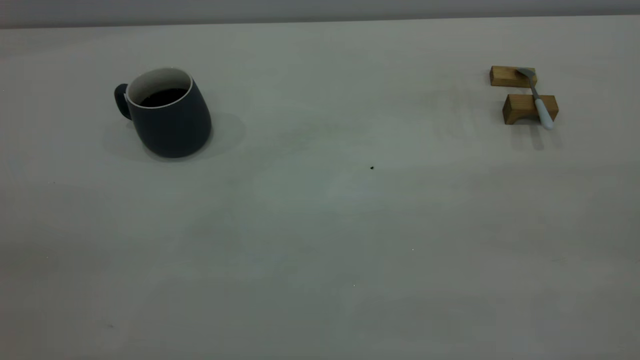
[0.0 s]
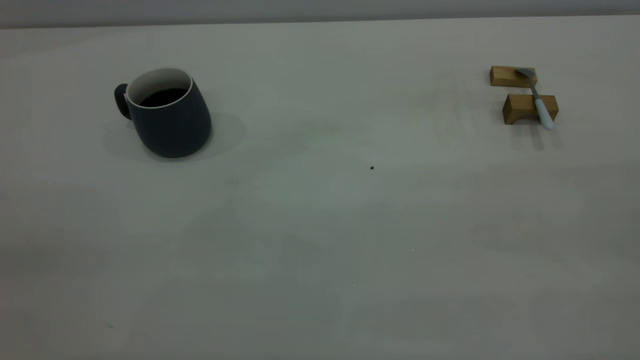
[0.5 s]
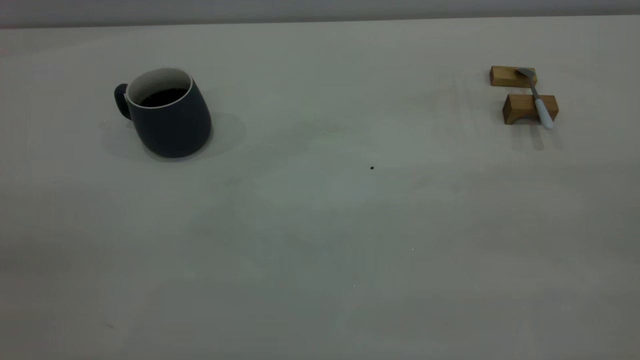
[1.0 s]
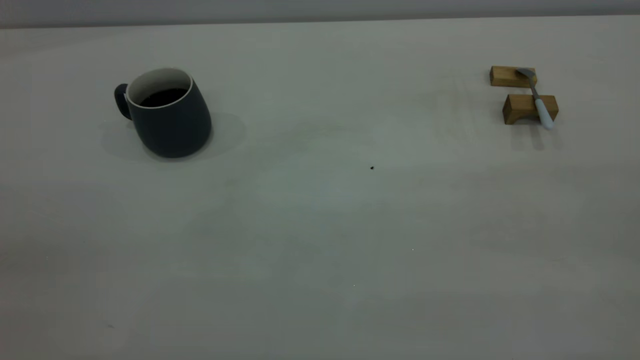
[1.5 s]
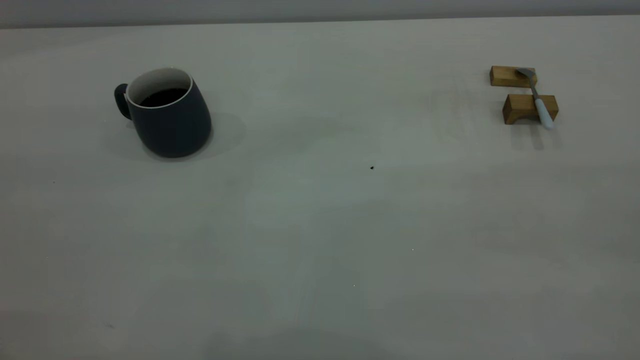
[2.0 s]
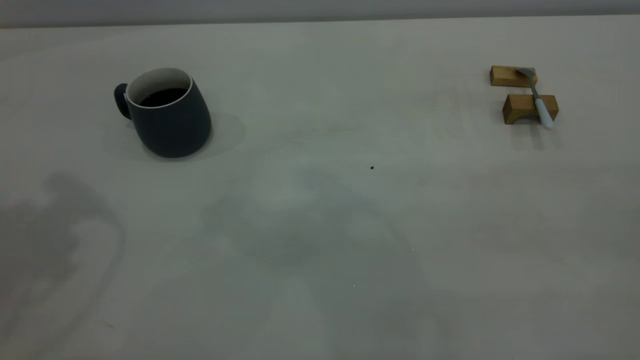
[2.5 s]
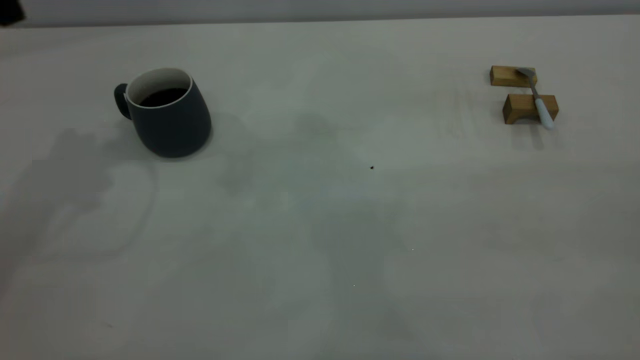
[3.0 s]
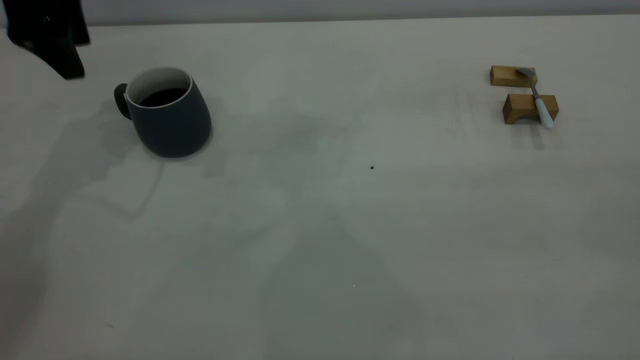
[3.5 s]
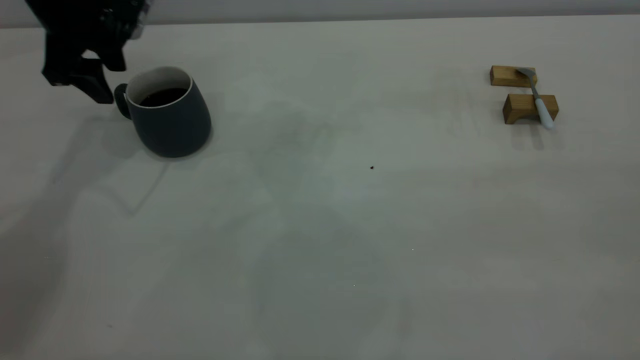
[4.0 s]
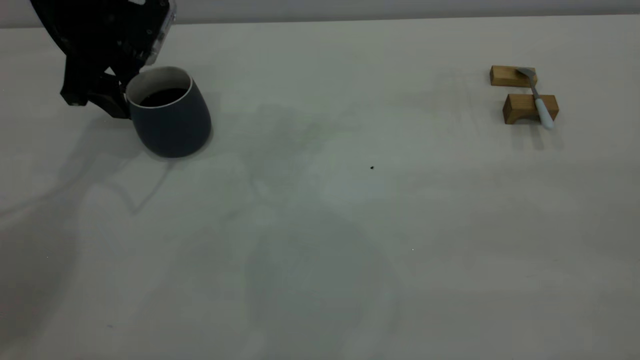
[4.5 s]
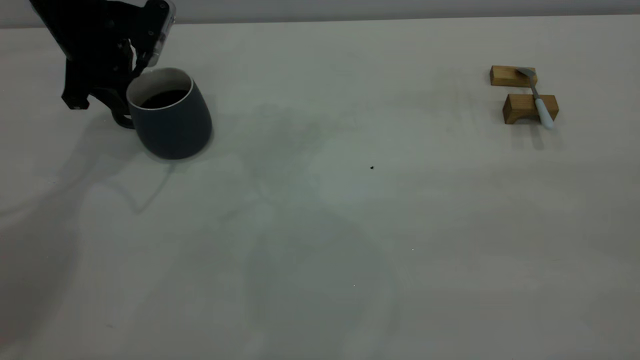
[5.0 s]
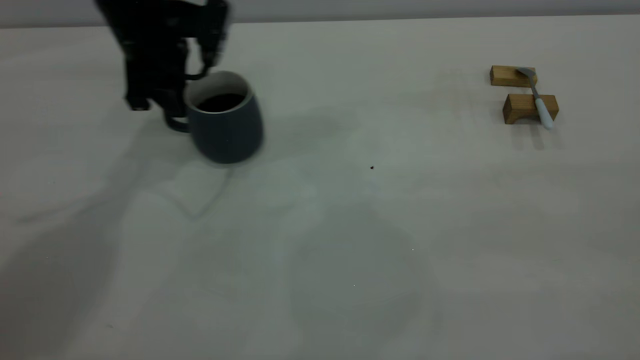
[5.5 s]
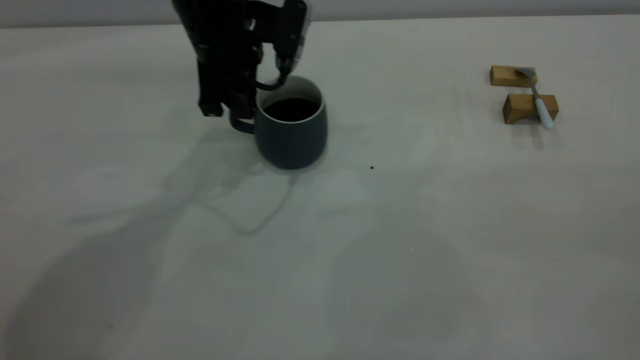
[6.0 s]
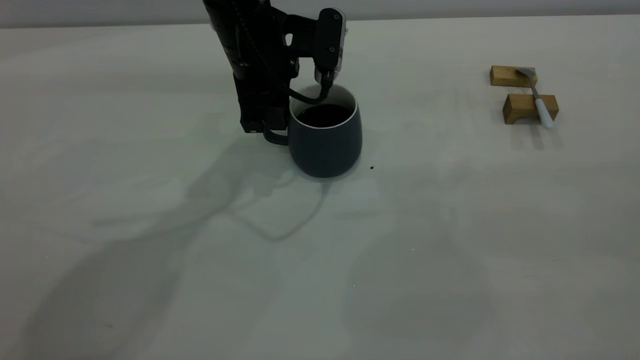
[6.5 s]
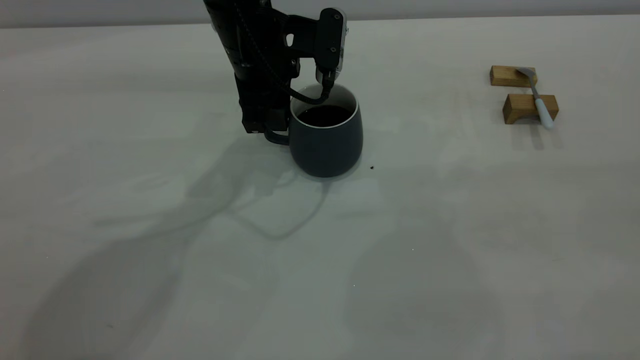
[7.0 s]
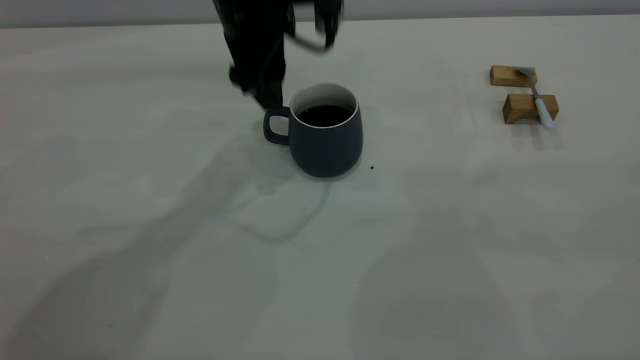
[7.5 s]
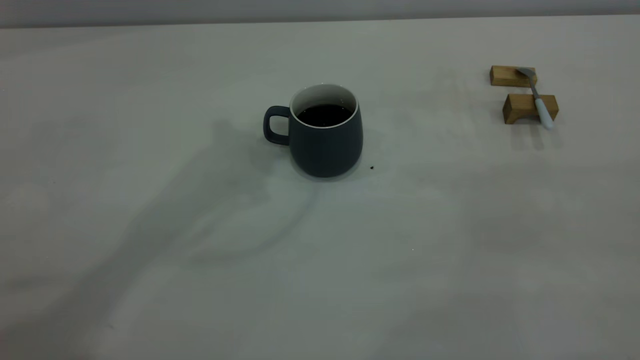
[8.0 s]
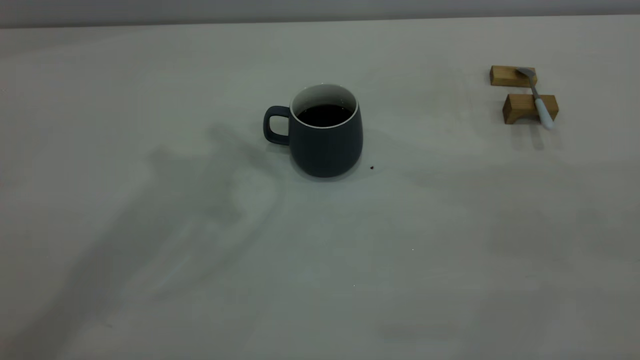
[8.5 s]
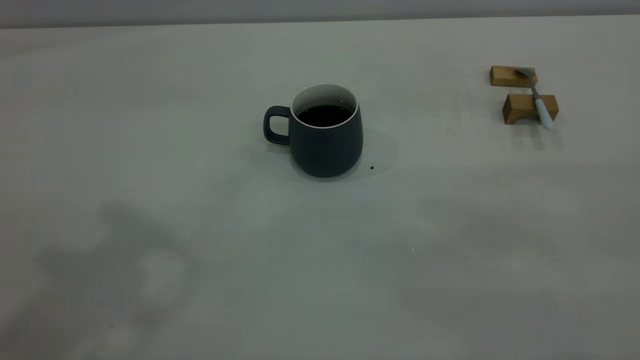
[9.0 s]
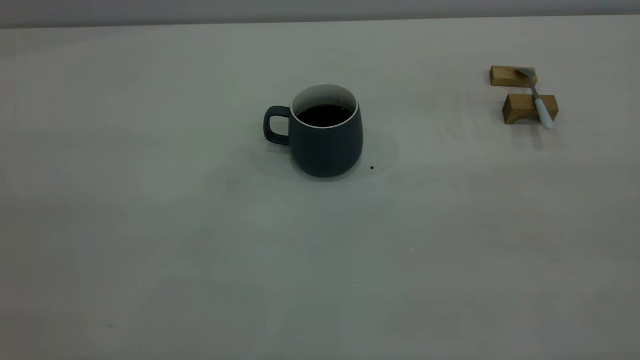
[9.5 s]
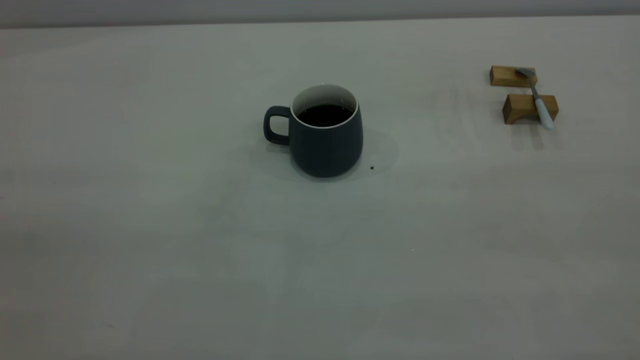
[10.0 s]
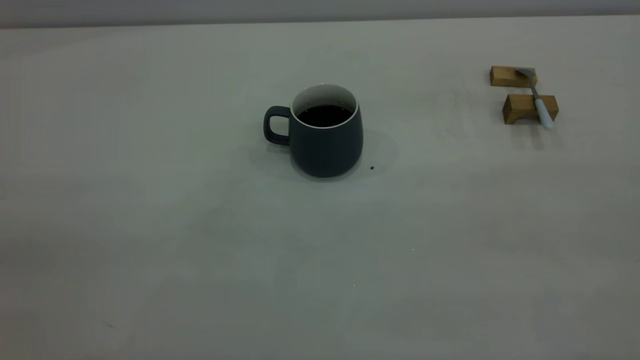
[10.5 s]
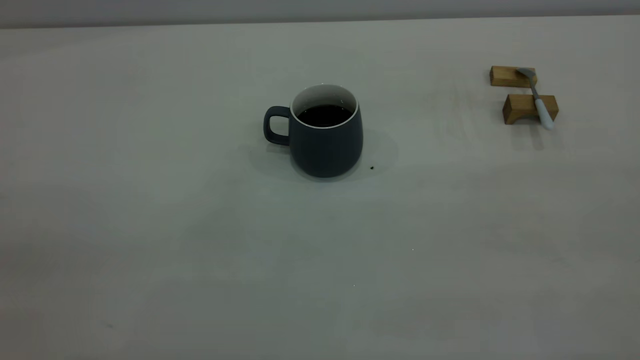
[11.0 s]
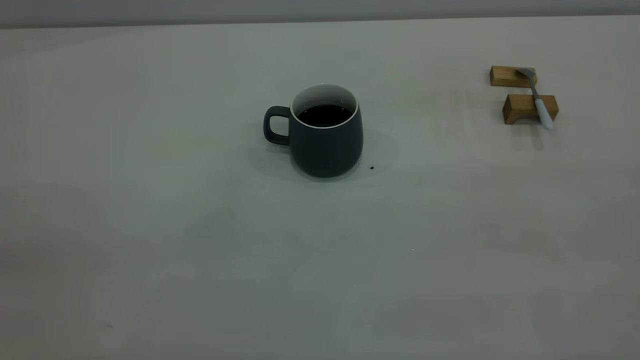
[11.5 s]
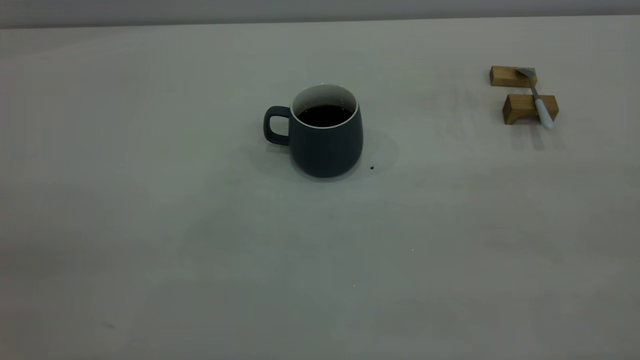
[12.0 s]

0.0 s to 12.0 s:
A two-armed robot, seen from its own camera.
Step, 0.0 to 7.5 s: Move the cup with coffee to the center of view.
2.0 to 4.0 s: The left gripper shifts some 40 cm forward and downward, and opens up.
4.0 to 6.0 s: The left gripper moves to the right, roughly 15 cm, and closes its fingers.
6.0 to 8.0 s: The left gripper goes about 20 cm upward, and opens.

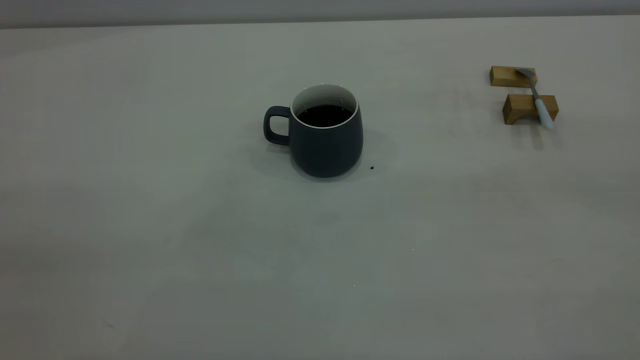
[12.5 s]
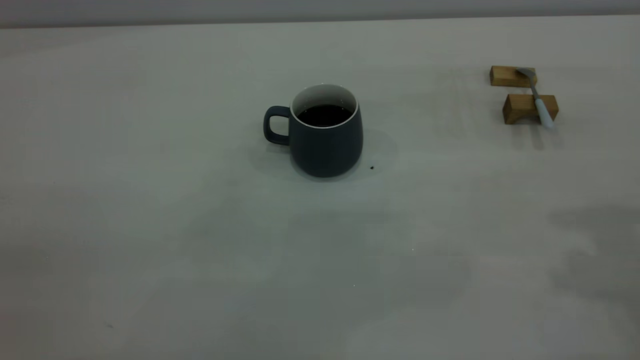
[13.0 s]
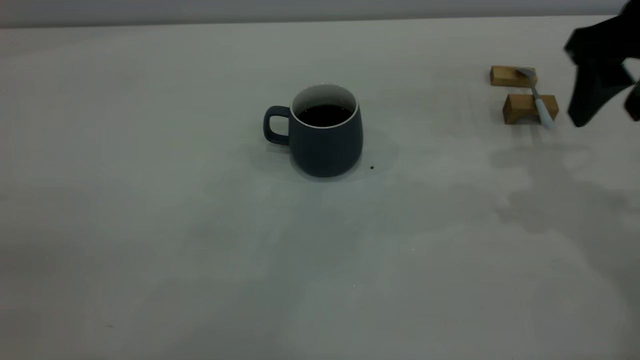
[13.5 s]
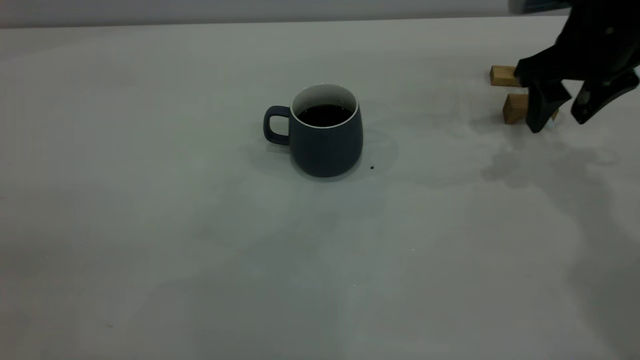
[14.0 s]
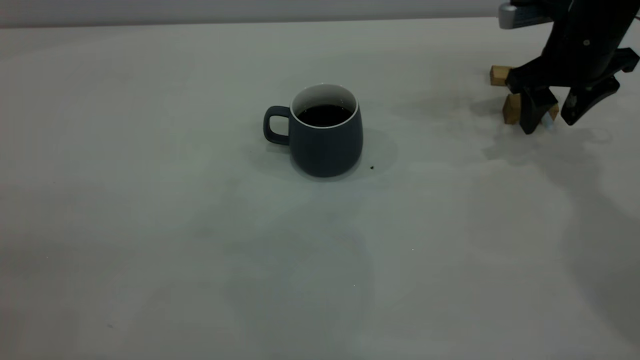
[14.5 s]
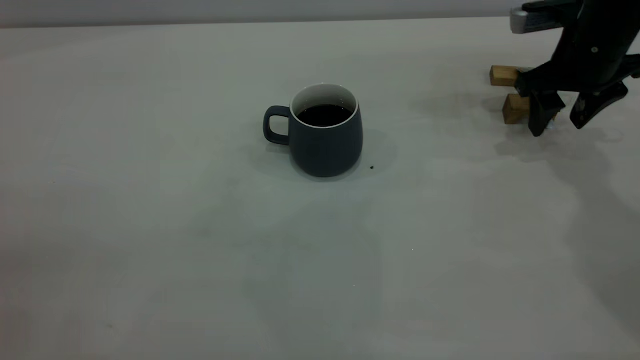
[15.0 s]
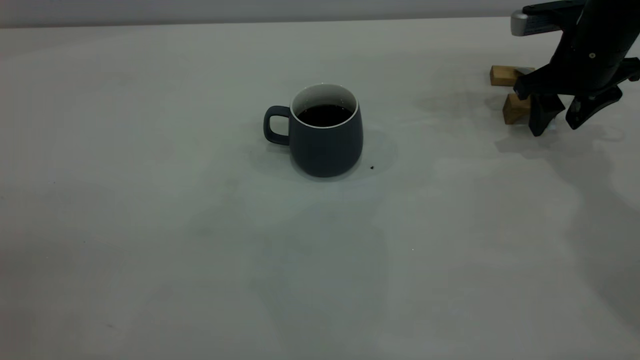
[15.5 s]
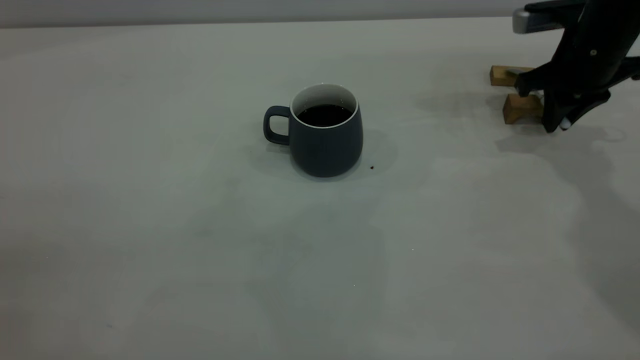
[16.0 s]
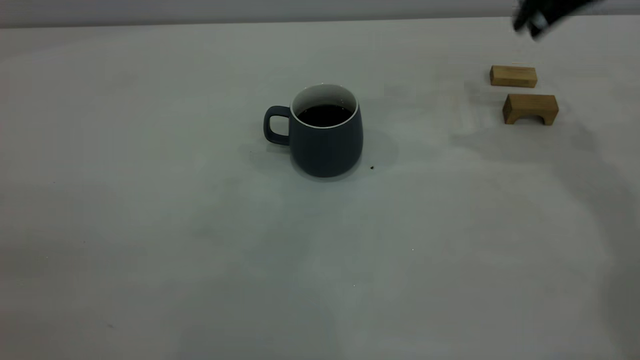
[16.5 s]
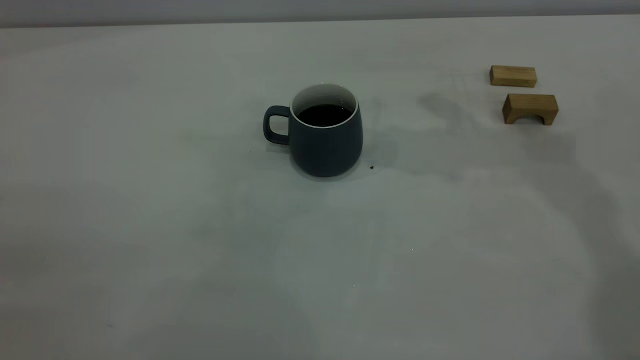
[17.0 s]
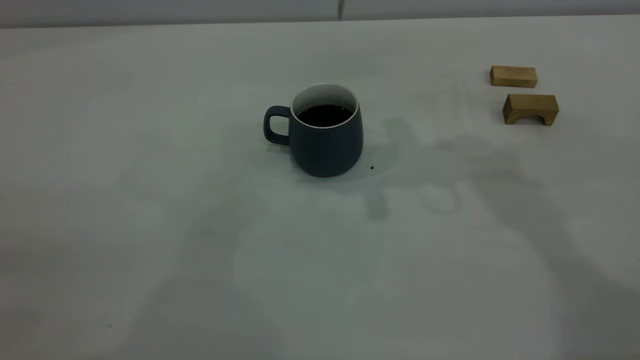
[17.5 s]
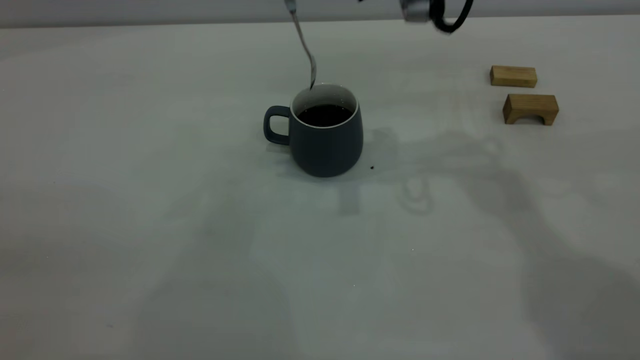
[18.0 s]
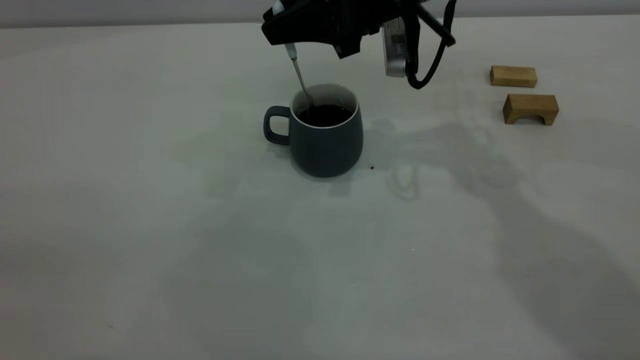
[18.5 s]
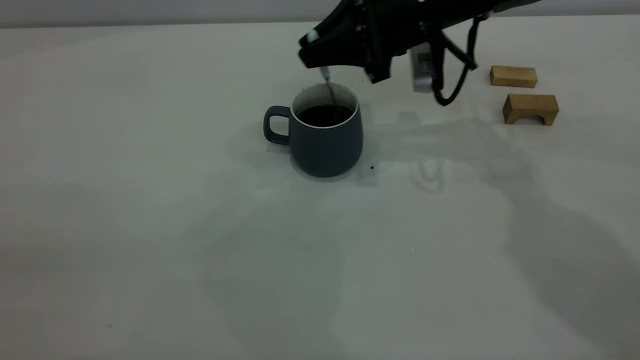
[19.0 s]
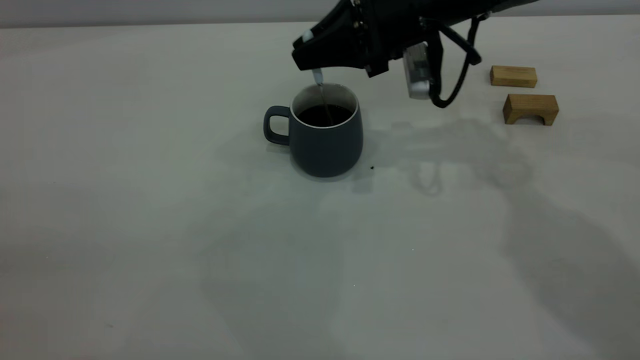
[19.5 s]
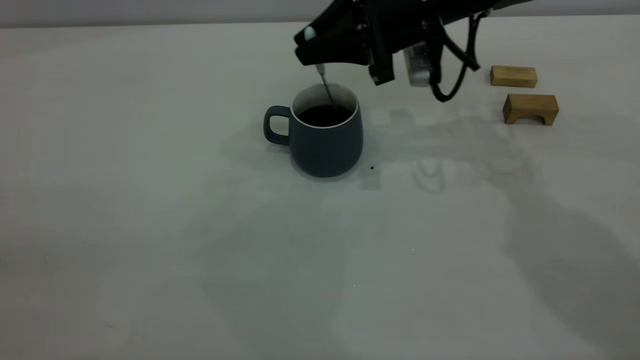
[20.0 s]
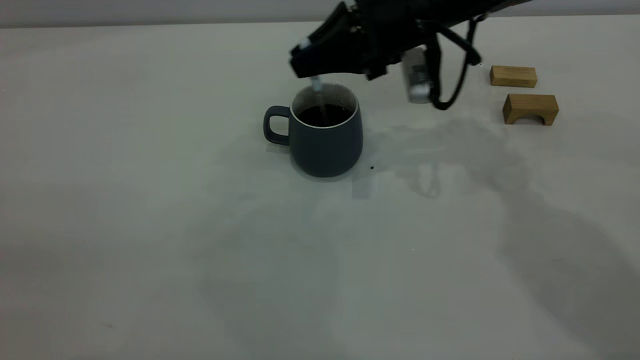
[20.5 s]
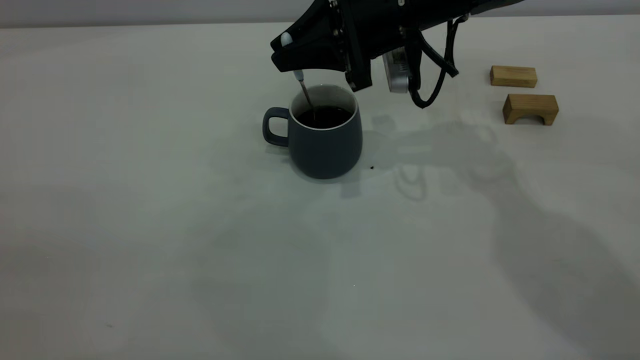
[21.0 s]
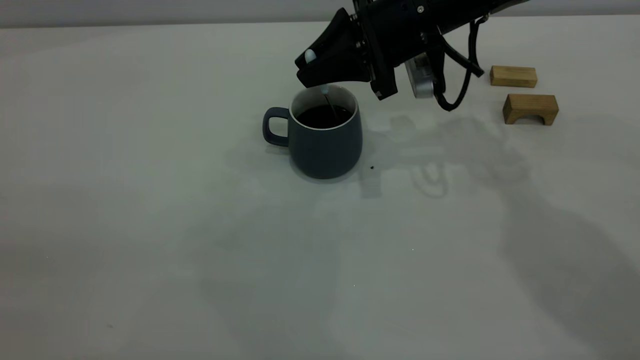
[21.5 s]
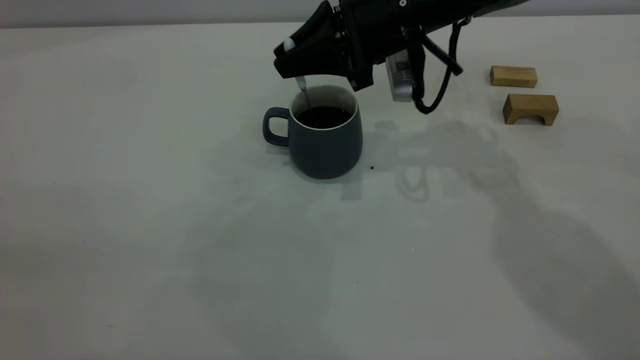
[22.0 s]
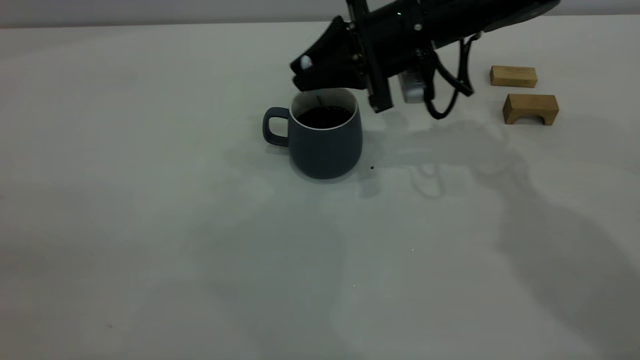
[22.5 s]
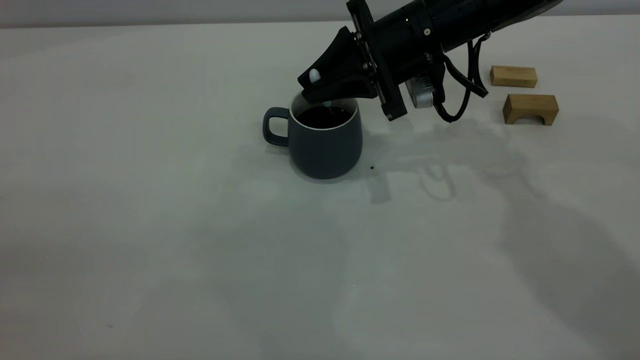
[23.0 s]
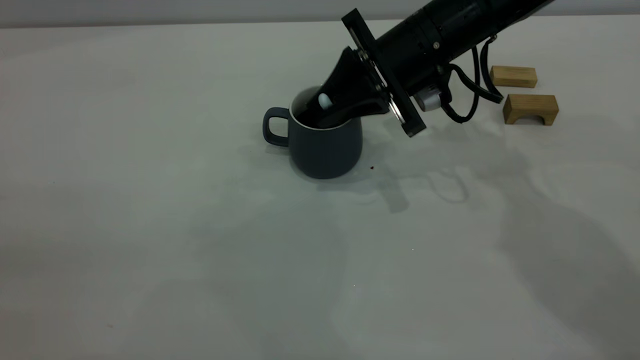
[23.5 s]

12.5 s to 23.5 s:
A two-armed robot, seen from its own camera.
Step, 12.5 to 16.0 s: Pick up the spoon.
12.5 to 14.5 s: The right gripper travels forward and downward by approximately 40 cm.
14.5 to 16.0 s: The right gripper closes up.
16.0 to 18.0 s: The right gripper is displaced to the left and upward by some 25 cm.
18.0 to 20.0 s: The right gripper moves downward, roughly 10 cm.
20.0 to 21.5 s: The grippers stay close to where they were, moving slightly.
